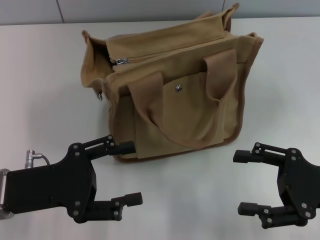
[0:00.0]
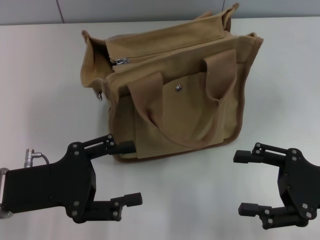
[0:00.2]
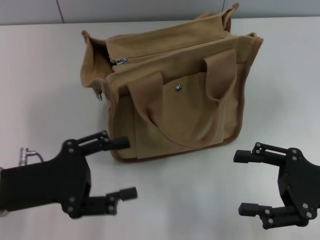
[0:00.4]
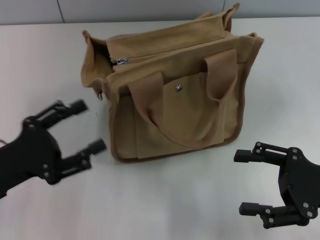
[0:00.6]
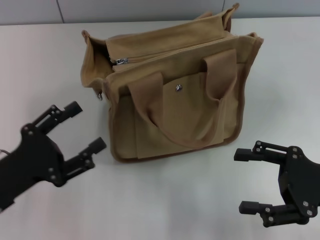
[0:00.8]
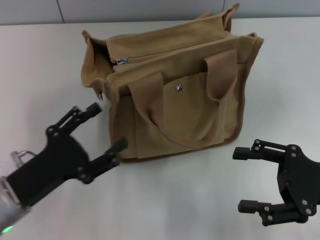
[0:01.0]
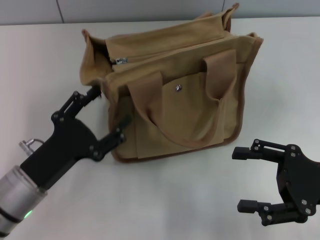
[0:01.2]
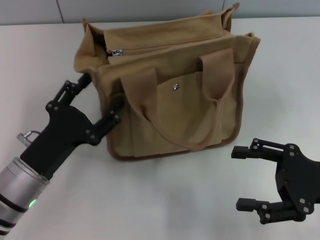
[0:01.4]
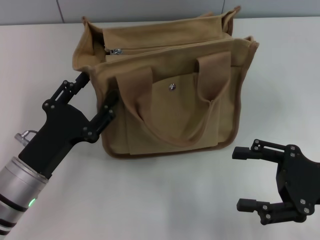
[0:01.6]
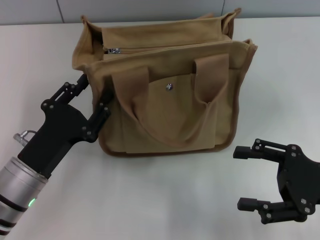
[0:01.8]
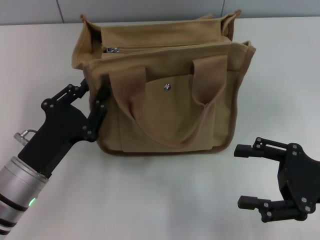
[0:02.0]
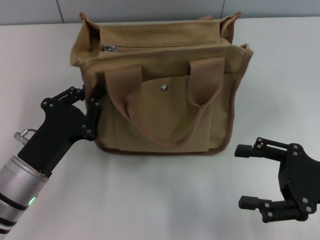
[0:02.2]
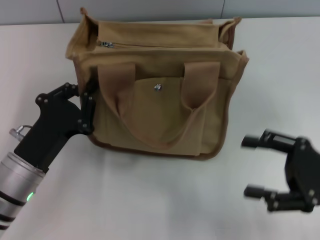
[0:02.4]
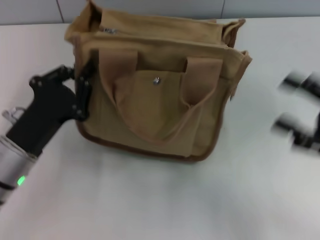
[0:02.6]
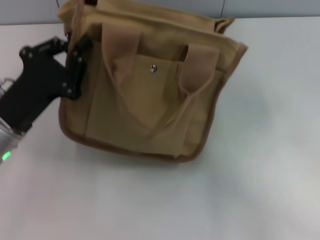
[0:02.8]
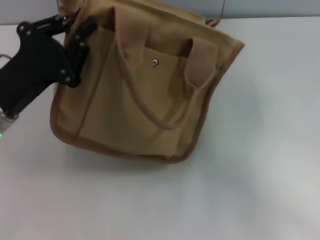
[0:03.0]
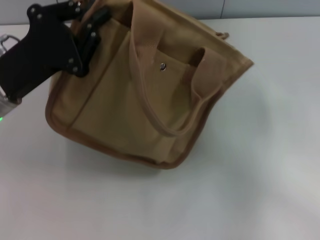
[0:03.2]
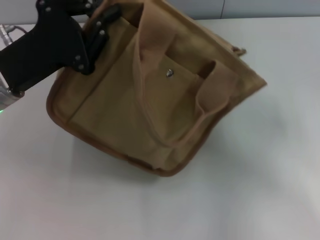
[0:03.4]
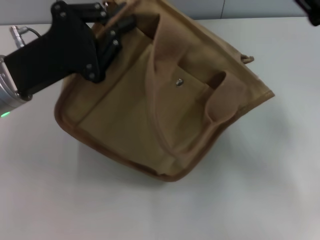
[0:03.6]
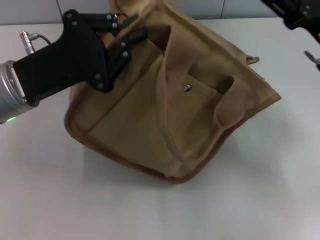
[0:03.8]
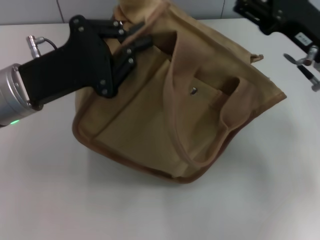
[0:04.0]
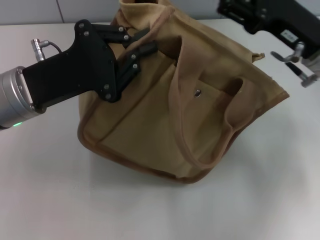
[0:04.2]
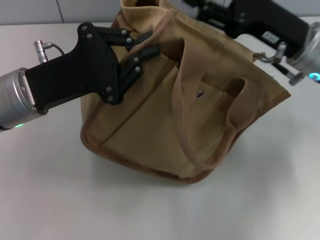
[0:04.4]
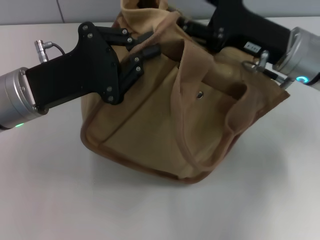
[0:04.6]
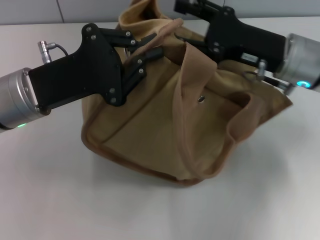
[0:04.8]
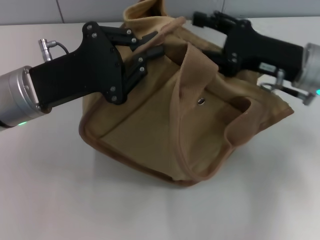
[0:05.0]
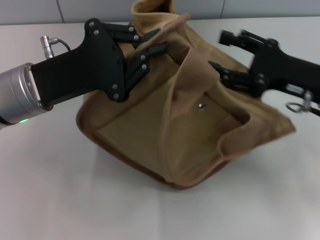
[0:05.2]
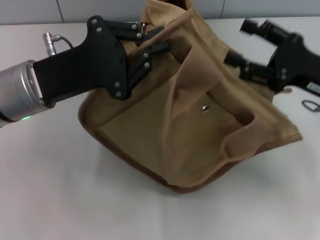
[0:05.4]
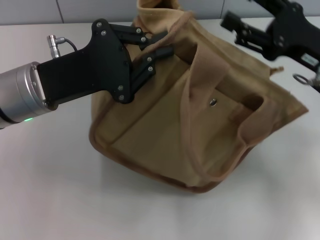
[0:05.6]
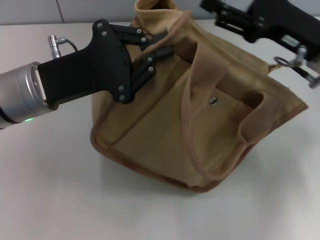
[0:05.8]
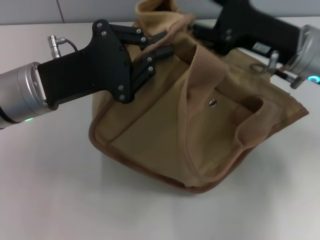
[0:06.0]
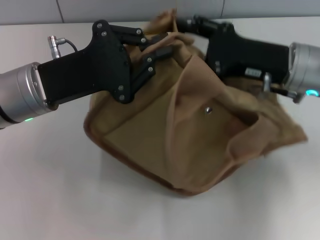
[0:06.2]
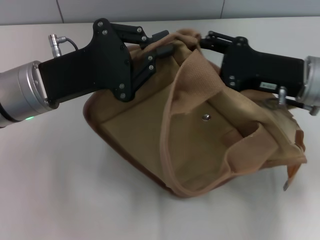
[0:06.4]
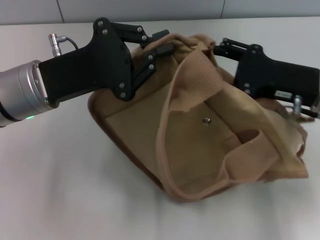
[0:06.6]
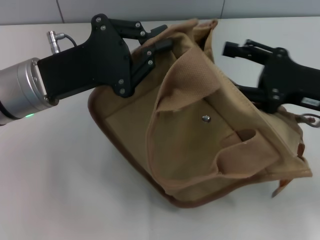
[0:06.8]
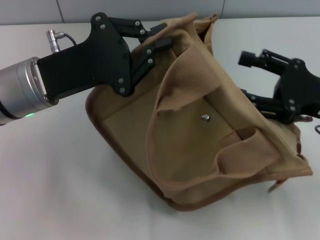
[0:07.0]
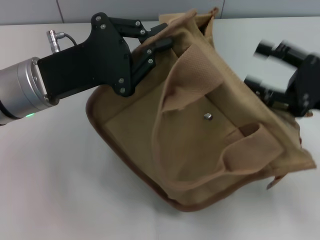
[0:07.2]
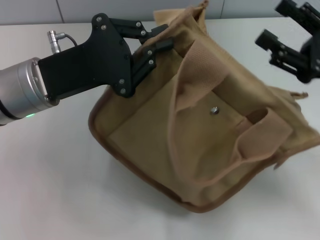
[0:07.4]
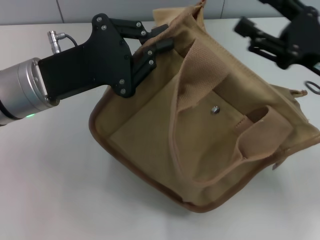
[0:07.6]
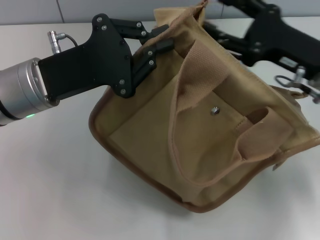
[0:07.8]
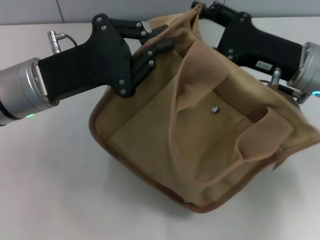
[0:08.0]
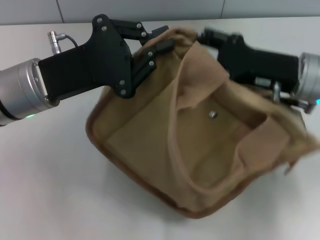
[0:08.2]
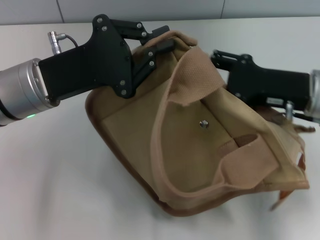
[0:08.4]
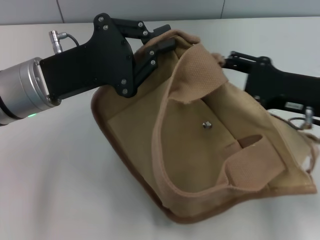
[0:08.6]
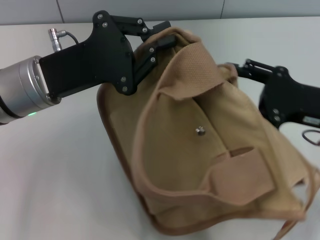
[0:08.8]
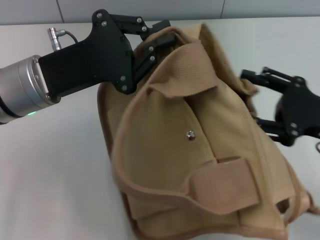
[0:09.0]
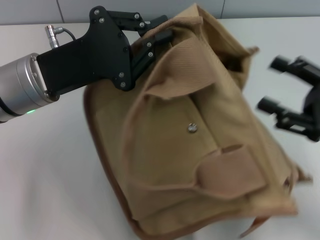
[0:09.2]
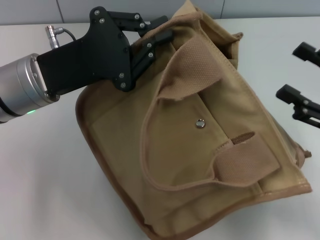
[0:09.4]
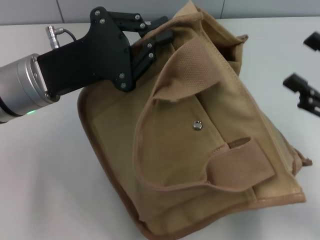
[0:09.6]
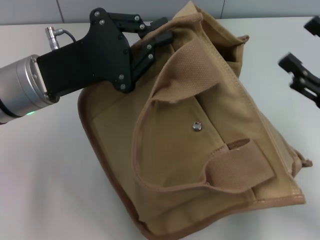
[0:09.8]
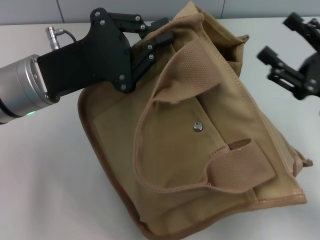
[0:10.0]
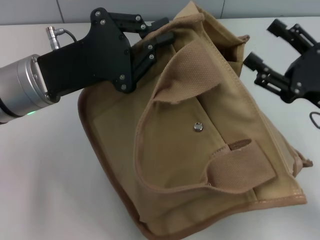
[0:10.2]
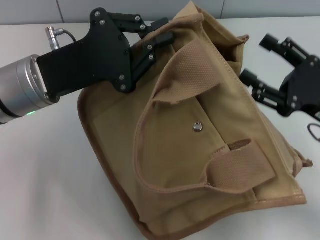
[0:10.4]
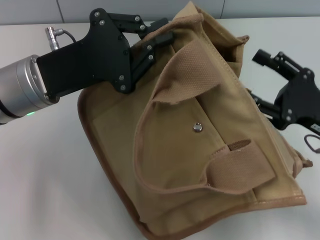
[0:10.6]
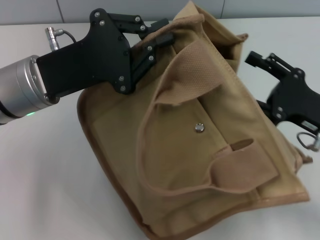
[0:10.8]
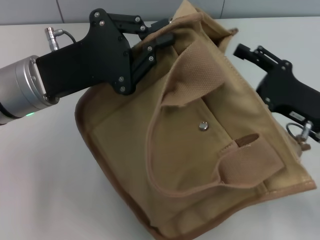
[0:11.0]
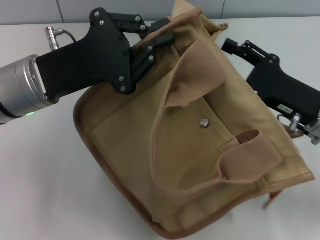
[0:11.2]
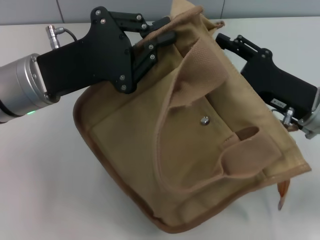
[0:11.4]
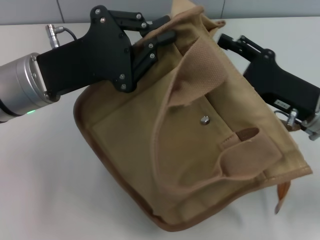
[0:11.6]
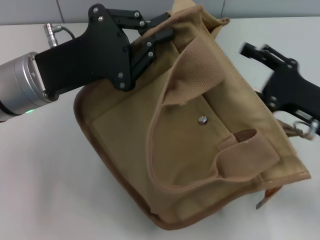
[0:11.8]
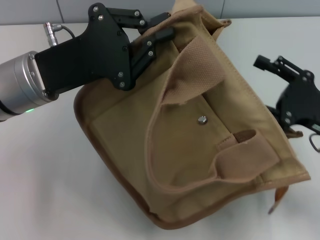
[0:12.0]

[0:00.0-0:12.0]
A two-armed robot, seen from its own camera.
0:00.0 to 0:01.6: The left gripper heads downward, covering about 5 cm.
0:01.6 to 0:03.0: The left gripper moves upward and forward, roughly 10 cm, and closes up.
0:03.0 to 0:04.4: The right gripper heads forward and to the left, covering about 15 cm.
0:06.0 to 0:07.6: The right gripper travels to the right by approximately 5 cm.
0:07.6 to 0:09.0: The right gripper changes place by roughly 5 cm.

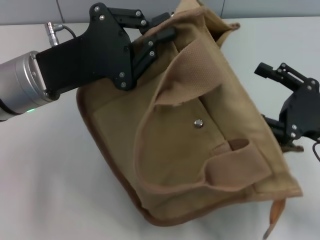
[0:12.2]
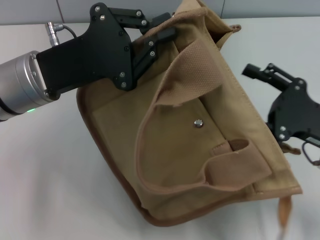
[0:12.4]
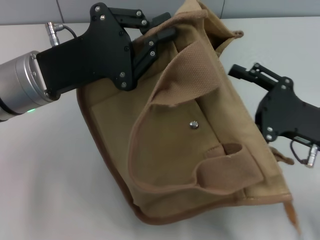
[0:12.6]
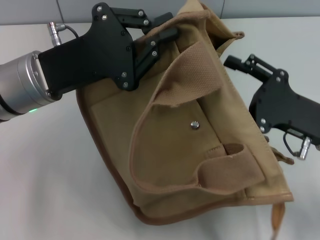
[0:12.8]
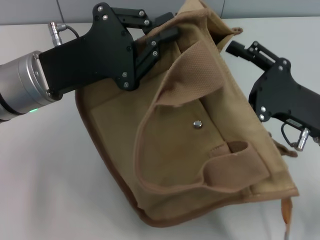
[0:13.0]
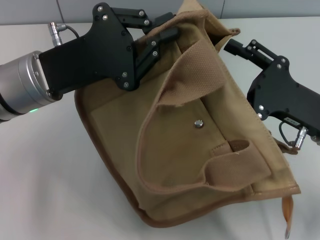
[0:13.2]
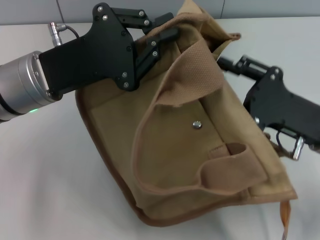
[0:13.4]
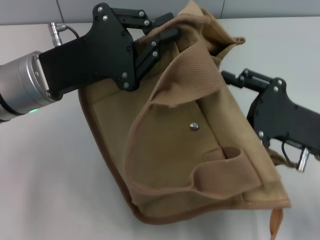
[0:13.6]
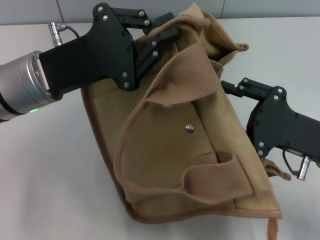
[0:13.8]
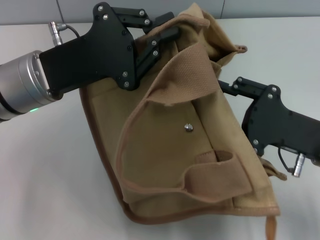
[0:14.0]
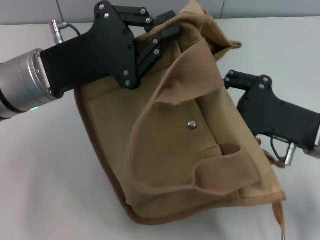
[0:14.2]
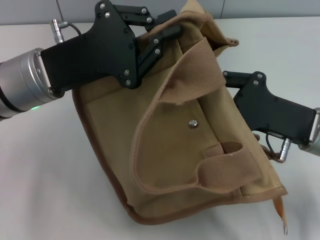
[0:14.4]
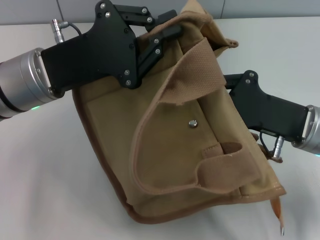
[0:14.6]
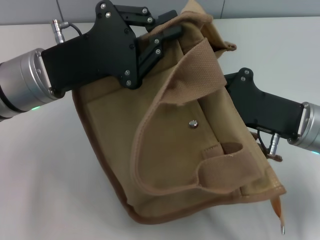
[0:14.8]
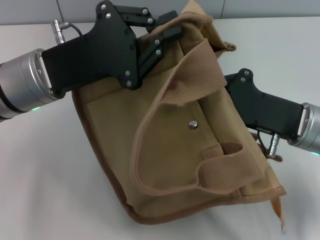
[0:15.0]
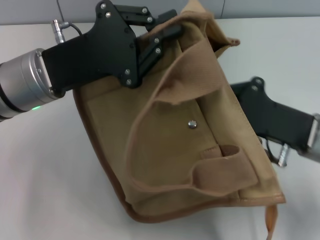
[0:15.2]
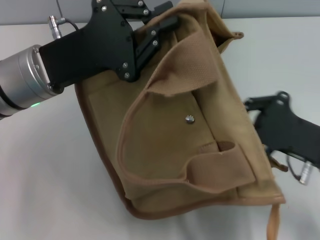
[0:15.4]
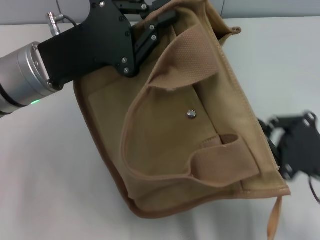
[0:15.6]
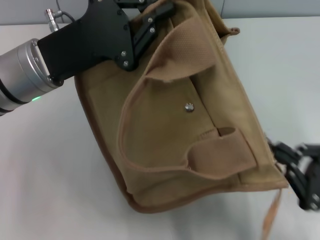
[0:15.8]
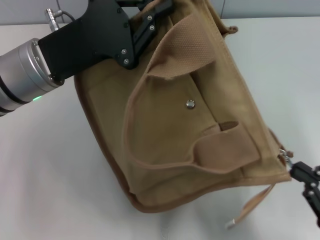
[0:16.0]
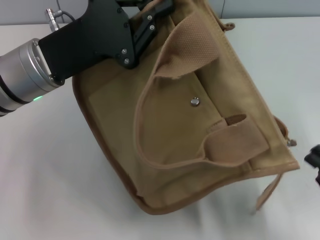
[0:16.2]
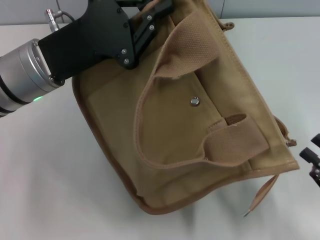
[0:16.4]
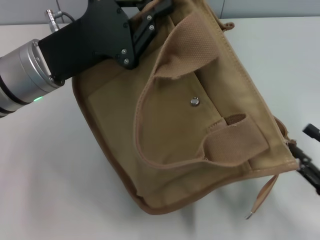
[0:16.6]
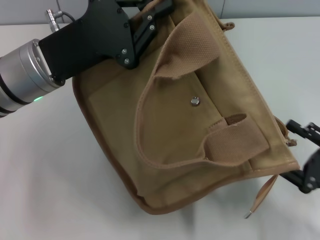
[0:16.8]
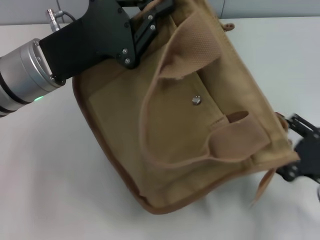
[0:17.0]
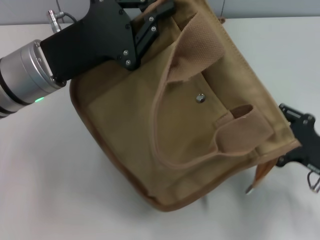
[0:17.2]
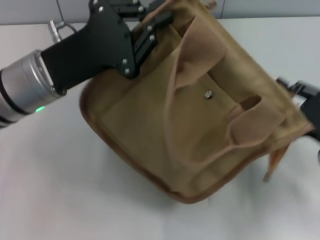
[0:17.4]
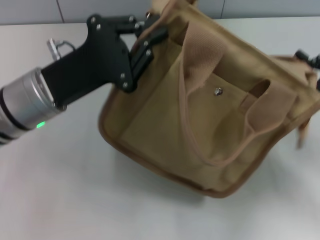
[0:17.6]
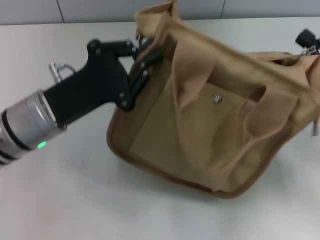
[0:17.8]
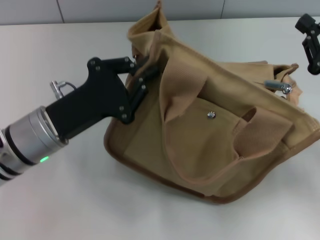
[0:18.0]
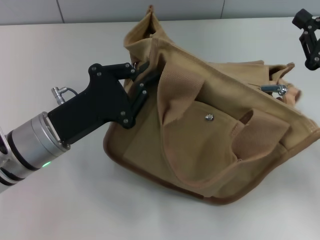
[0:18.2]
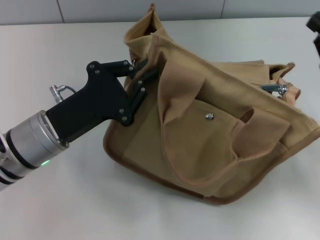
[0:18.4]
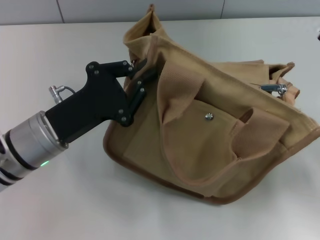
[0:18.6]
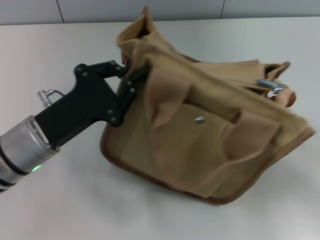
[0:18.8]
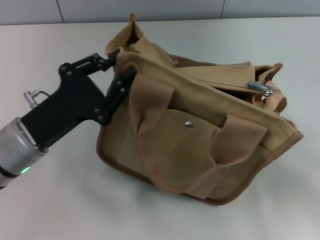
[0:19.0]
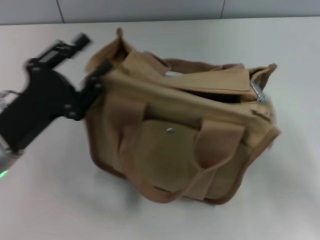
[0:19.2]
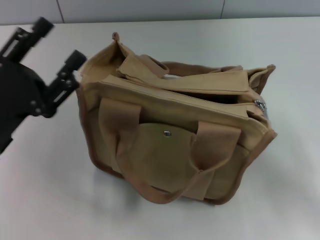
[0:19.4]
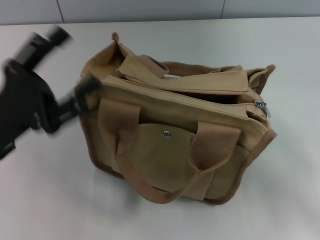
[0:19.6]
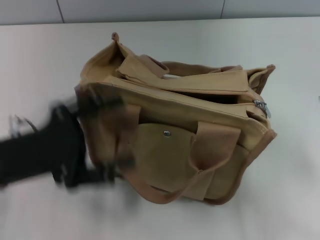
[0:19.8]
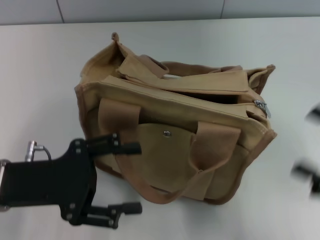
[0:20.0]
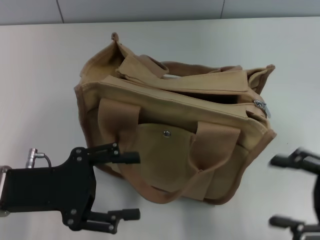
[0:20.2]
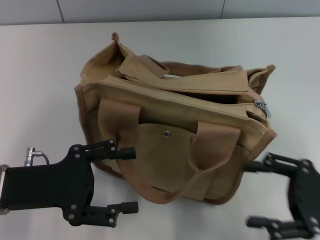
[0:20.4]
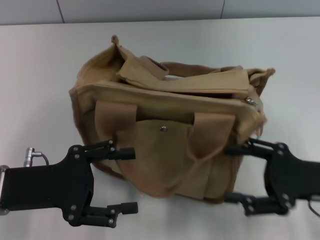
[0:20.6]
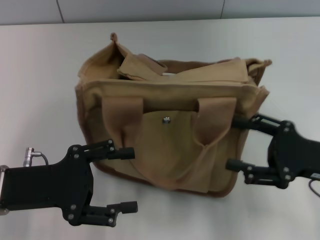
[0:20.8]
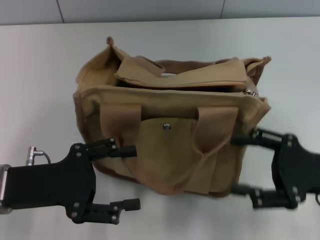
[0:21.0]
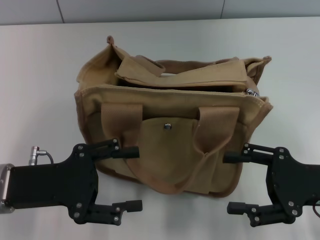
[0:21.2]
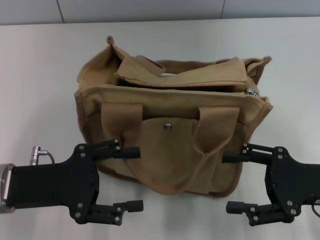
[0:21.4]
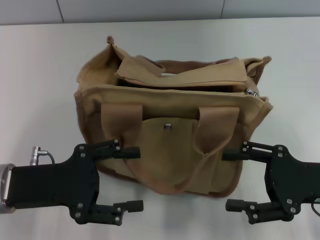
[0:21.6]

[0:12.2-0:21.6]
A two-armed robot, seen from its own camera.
Step, 0:12.2 to 0:18.4: Pull open the zipper with your right hand.
Step, 0:18.6 to 0:19.2: Grab the bag with your left hand.
0:13.8 to 0:15.4: The right gripper closes up.
0:15.4 to 0:17.0: The right gripper opens its fingers.
0:17.0 to 0:18.4: The right gripper is displaced forward and upward by roughly 10 cm, and closes. Meanwhile the left gripper moves downward and backward, about 10 cm.
0:18.4 to 0:20.0: The left gripper goes about 5 cm to the left, and opens its fingers. The right gripper travels backward by roughly 10 cm, and opens up.
0:20.0 to 0:21.6: The right gripper travels to the left by approximately 5 cm.

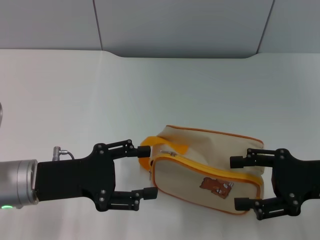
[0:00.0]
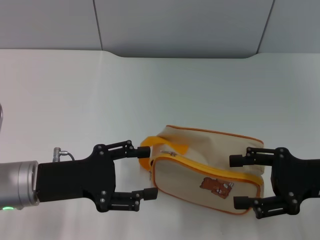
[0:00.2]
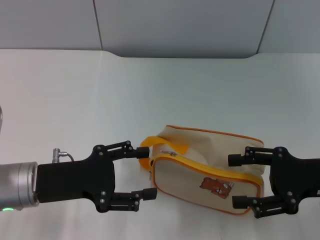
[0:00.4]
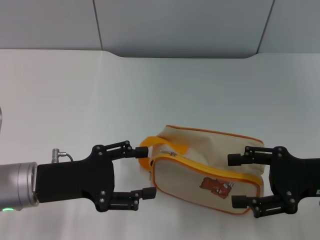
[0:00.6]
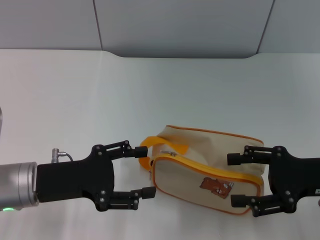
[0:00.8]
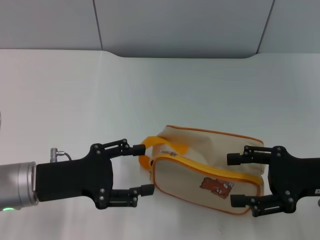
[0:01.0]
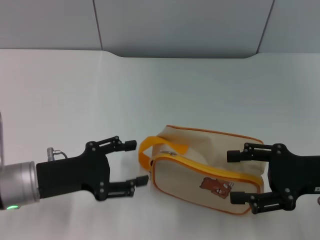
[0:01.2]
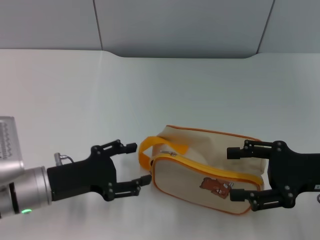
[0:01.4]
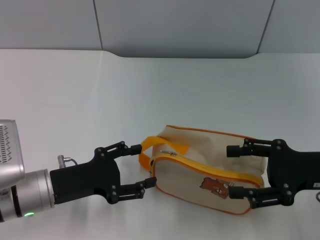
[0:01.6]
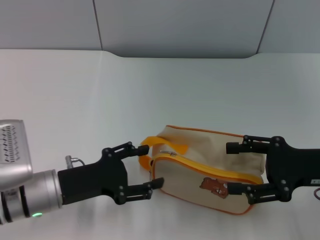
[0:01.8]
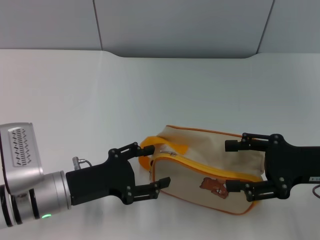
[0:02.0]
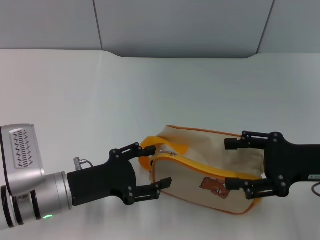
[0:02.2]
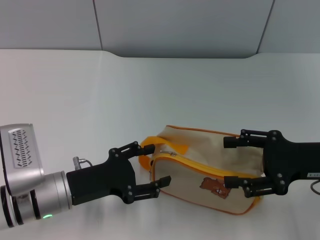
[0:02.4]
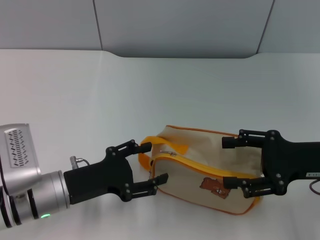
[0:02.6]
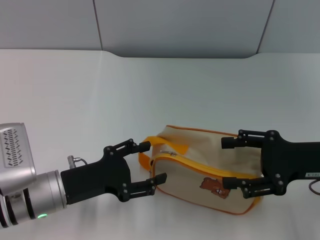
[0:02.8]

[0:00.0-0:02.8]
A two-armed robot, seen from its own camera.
0:00.0 to 0:02.8: There are only small adjustments of the grippers.
